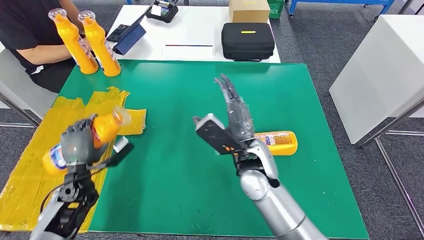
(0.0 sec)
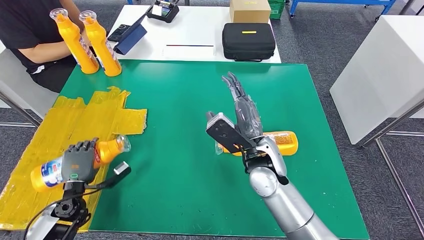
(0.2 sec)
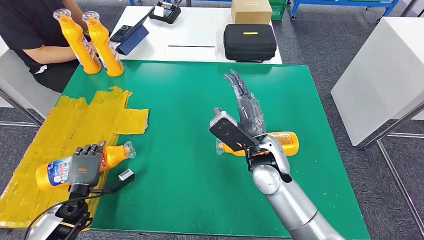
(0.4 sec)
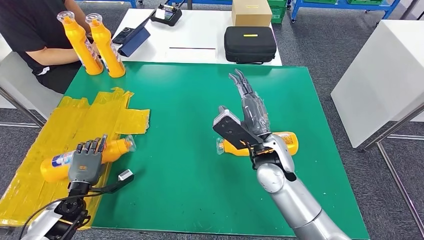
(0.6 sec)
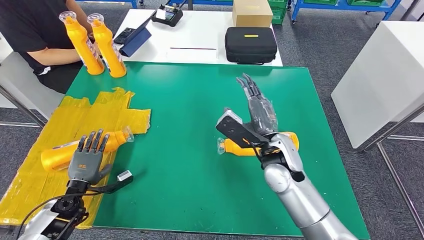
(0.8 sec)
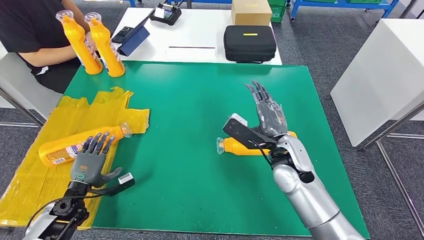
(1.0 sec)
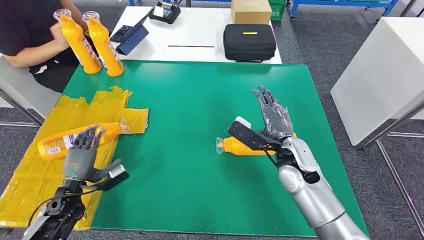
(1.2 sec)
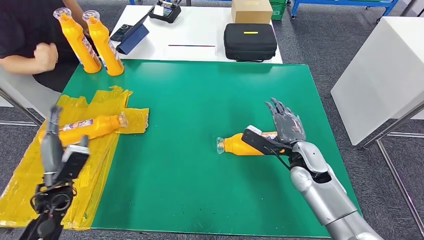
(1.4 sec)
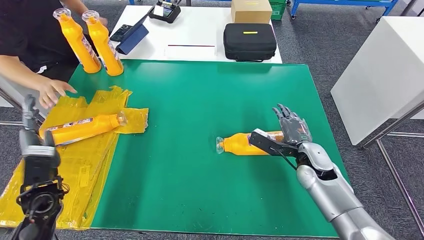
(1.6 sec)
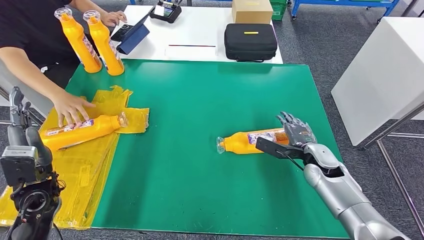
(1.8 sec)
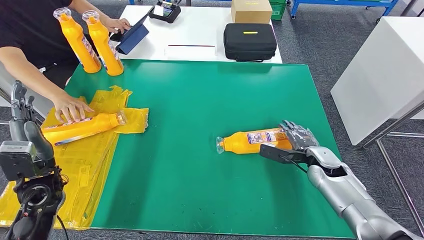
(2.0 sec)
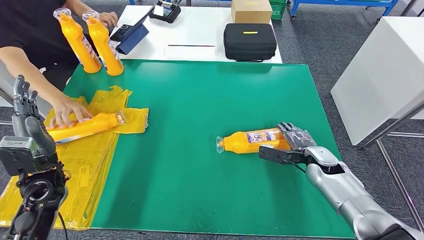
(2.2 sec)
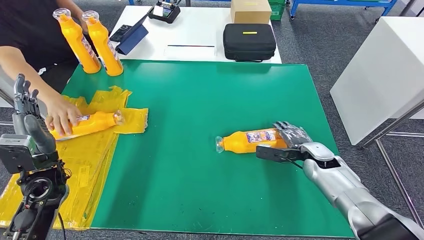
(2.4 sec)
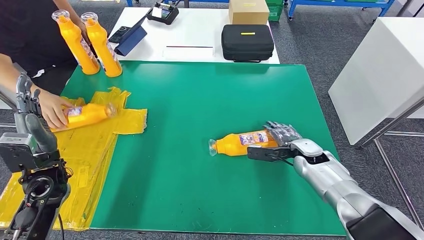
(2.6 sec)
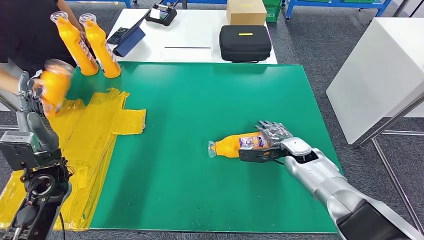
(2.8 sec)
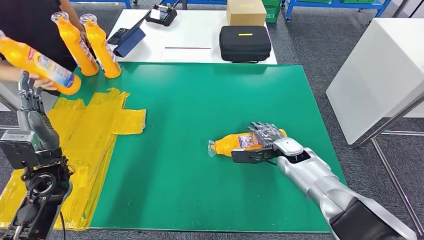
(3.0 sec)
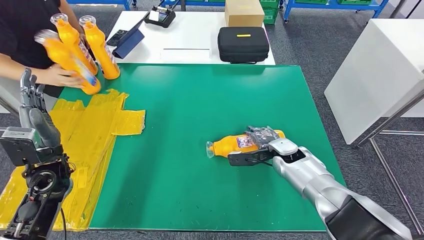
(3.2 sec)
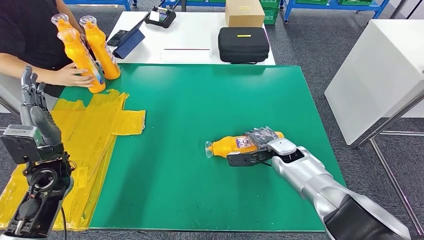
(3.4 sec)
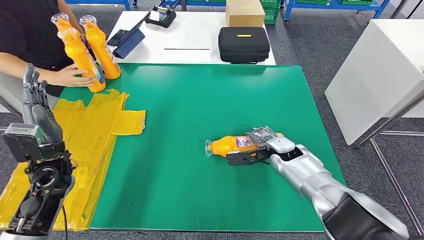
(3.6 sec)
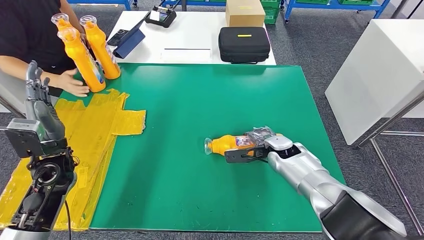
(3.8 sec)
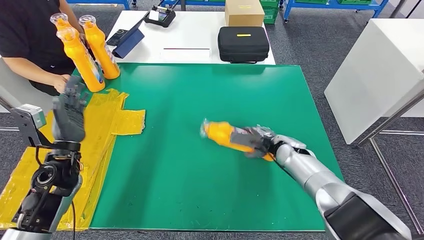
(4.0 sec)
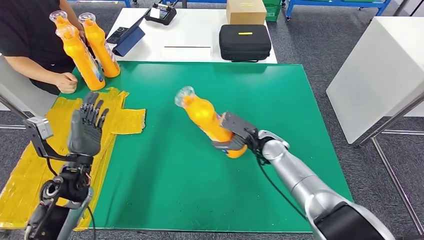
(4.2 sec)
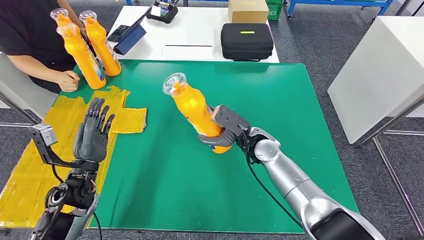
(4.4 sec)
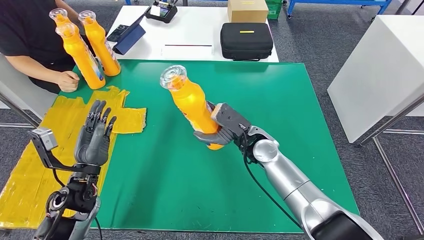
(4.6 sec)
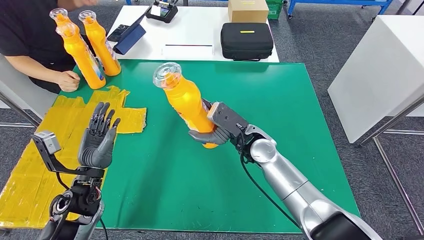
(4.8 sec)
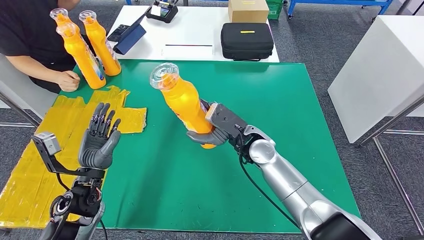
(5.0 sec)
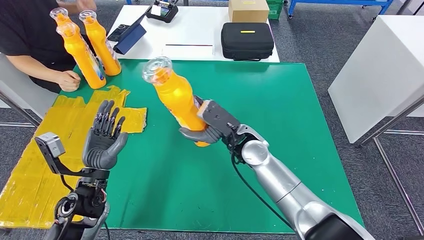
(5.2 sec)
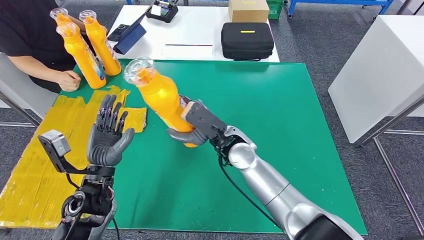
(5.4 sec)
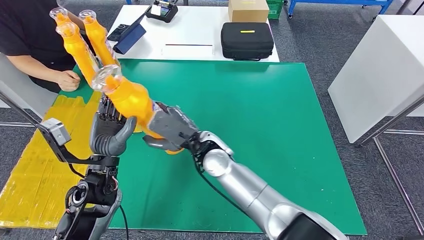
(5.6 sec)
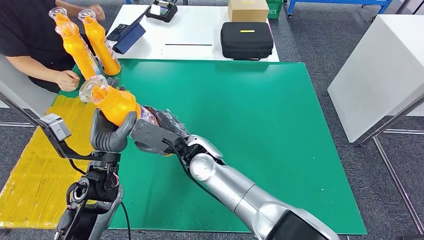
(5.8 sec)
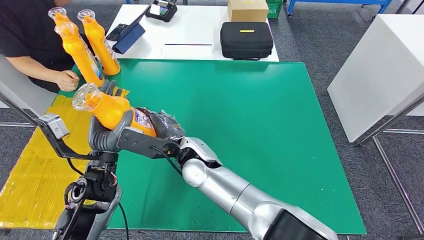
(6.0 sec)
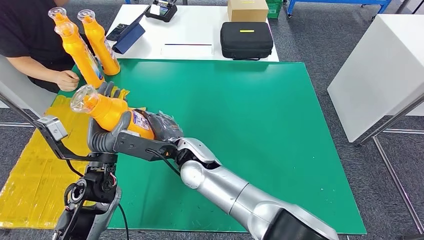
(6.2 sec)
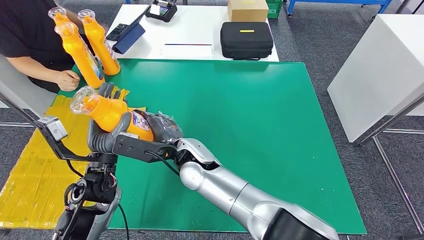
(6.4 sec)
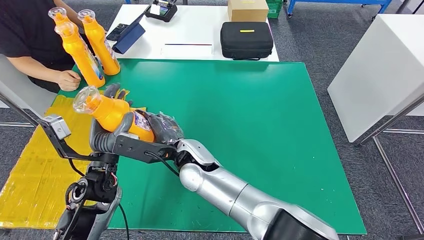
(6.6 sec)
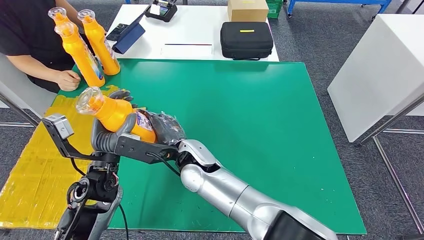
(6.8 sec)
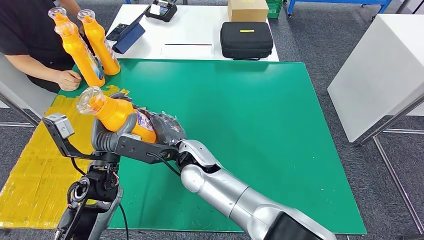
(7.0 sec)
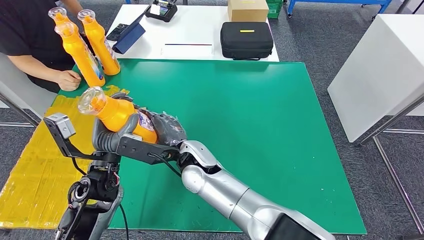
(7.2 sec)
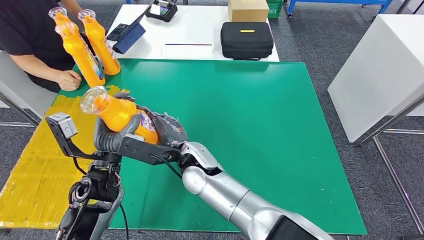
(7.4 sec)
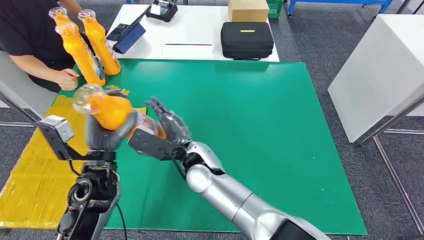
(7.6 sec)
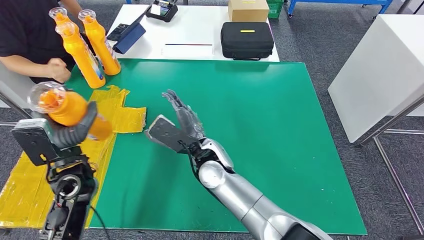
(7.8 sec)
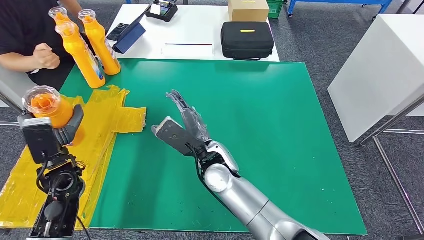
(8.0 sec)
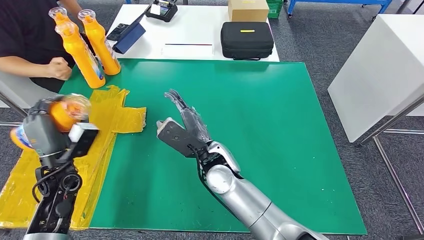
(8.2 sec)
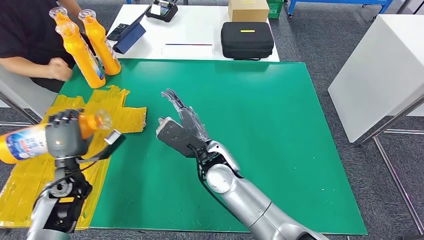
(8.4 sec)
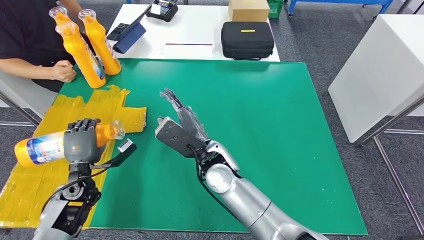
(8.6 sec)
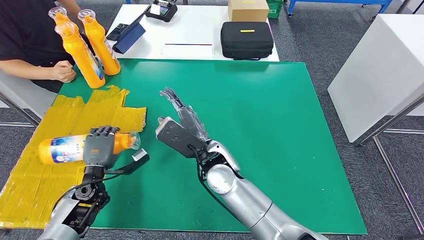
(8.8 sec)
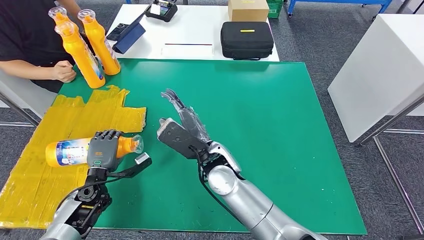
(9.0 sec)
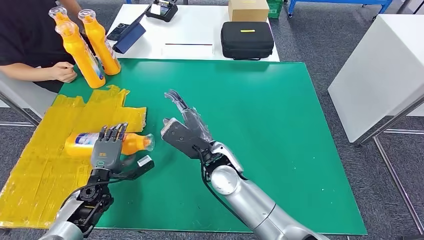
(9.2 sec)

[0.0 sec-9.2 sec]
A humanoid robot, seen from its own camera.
Step, 0.0 sec to 1.6 sec: Flip the fast-moving consumer goods bottle to the front side.
Step, 3.0 sec to 5.2 sec: Pick up the fast-moving consumer goods bottle from the table.
Step, 6.4 sec to 9.0 sec: Flip the fast-moving consumer goods bottle to the front side.
6.2 sec to 7.6 sec: The hands stay close to where they were, moving slightly.
7.6 sec to 9.2 sec: The left hand moves downward and to the left, some 20 cm, while the right hand changes place by approximately 5 cm.
